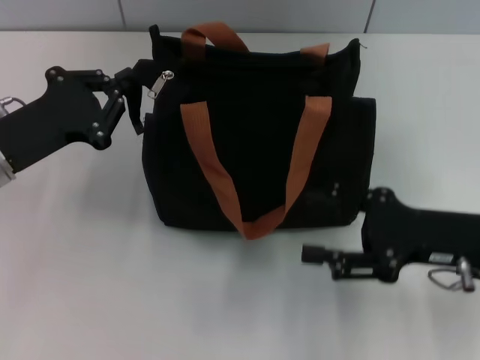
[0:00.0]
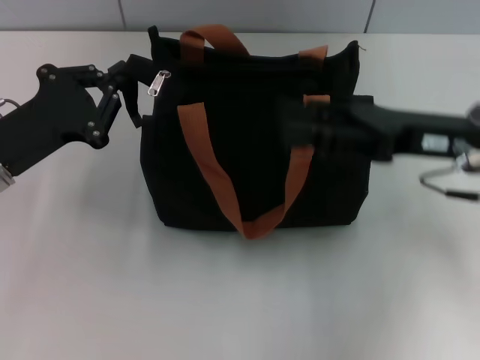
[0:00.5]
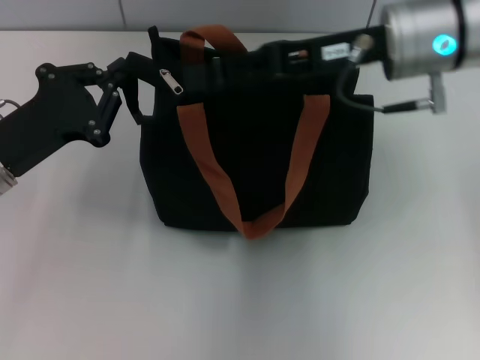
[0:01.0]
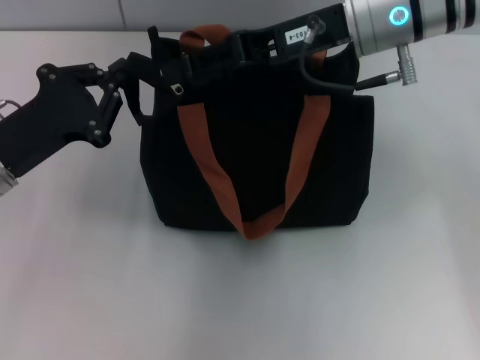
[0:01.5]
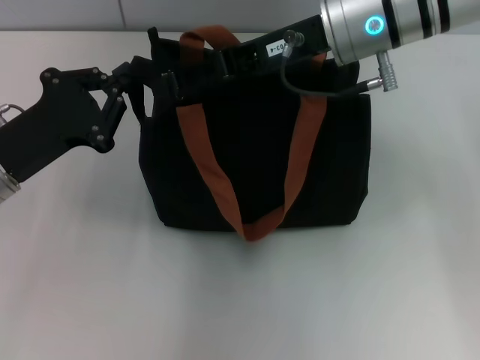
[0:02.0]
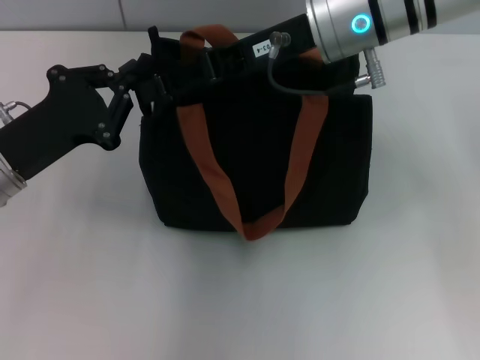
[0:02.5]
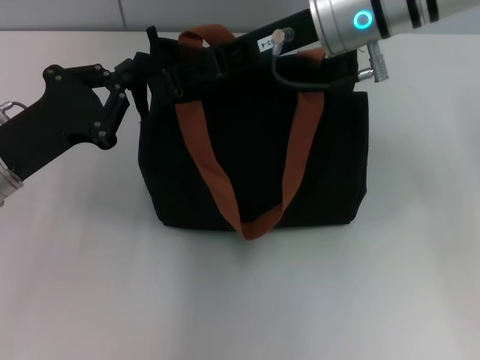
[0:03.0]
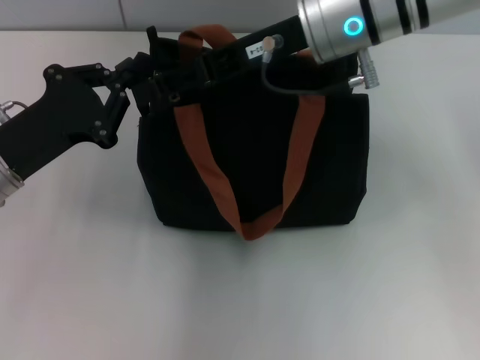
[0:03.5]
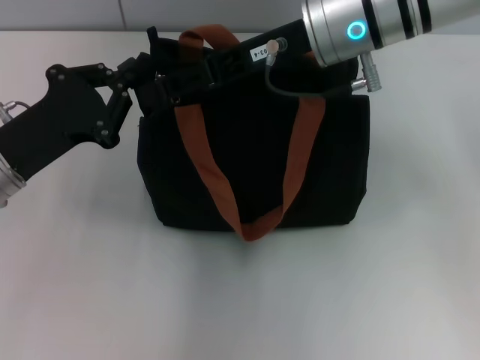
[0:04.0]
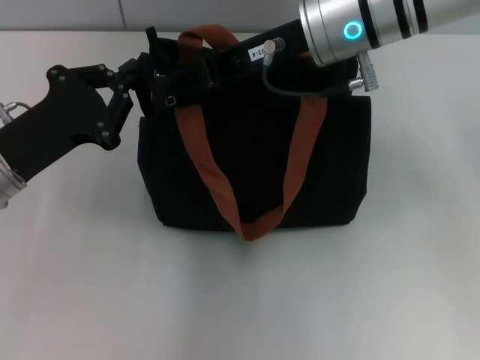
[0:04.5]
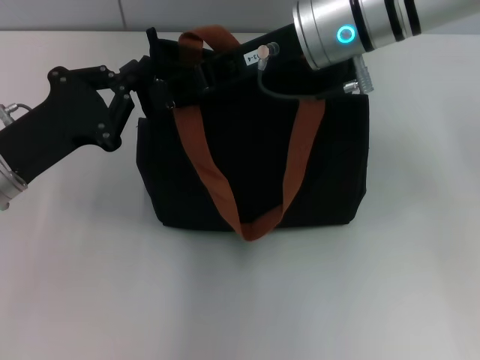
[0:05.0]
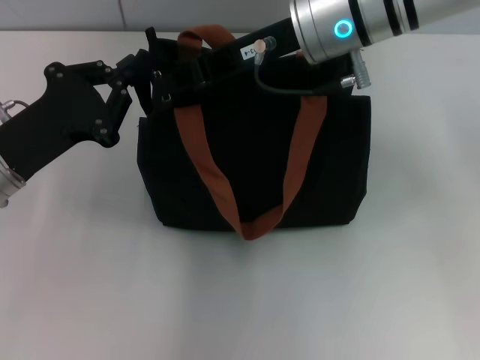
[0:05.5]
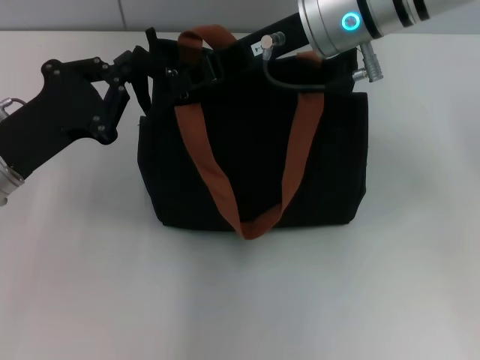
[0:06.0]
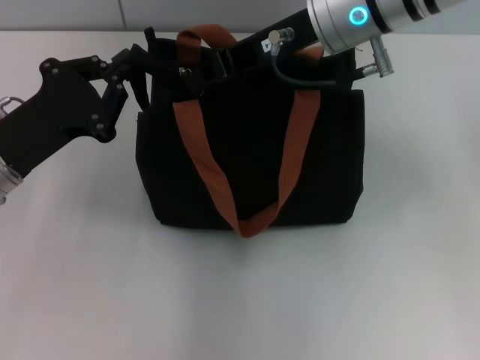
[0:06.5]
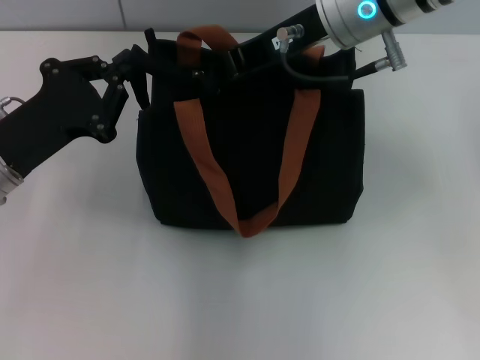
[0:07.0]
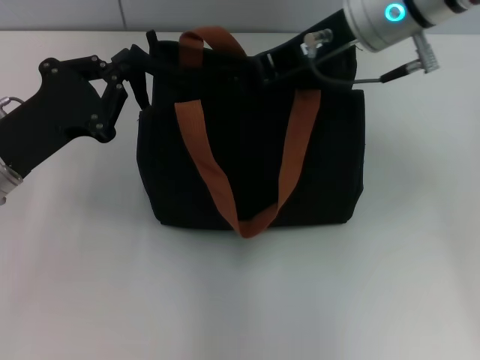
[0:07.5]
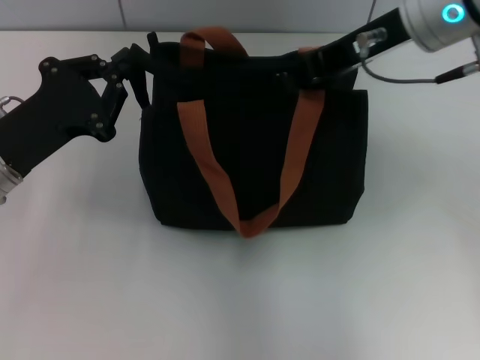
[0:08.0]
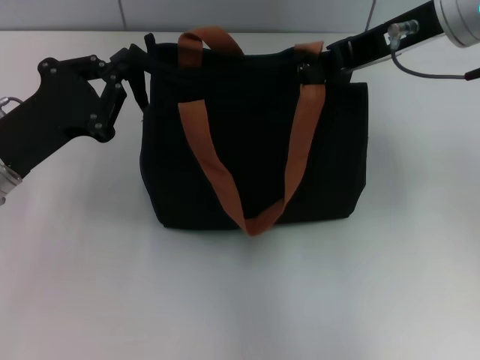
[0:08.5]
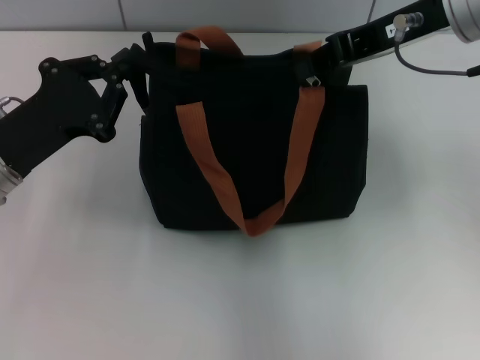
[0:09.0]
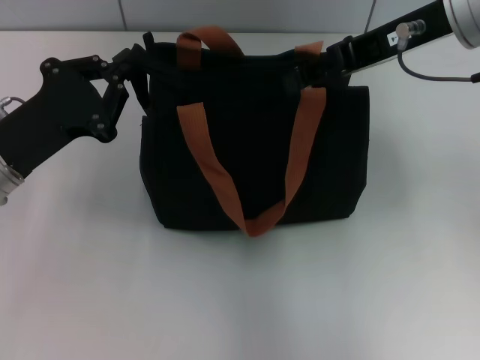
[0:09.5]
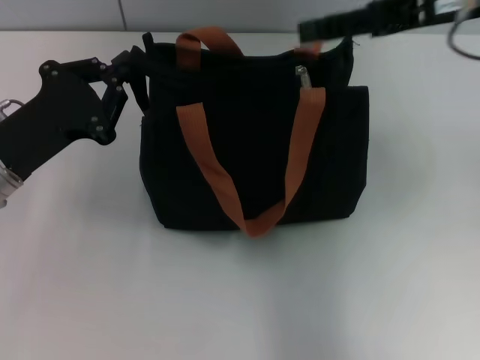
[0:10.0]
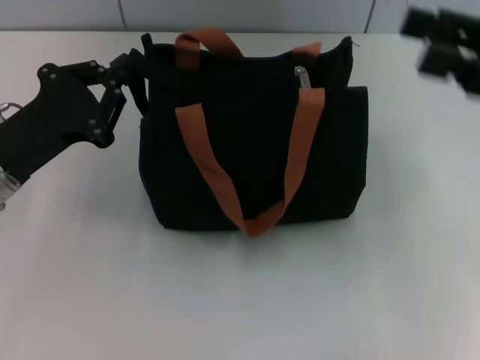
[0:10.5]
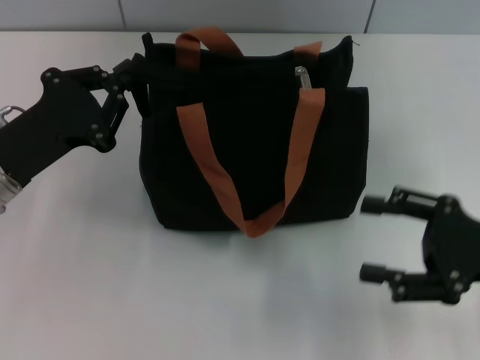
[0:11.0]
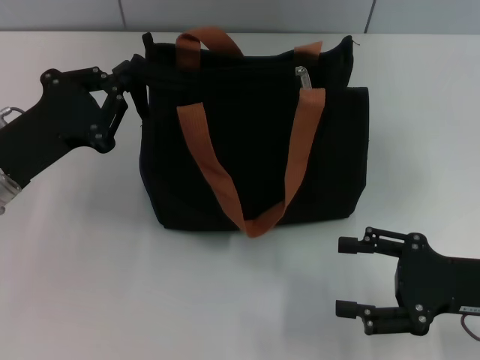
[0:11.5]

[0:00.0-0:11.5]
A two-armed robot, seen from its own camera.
Step, 0:00.0 to 0:10.0: Pull up the zipper with your right hand.
0:00.0 to 0:02.0: The right gripper goes approximately 25 cm to the left, forward and upward.
0:02.0 to 0:04.0: The grippers move only a little.
0:04.0 to 0:06.0: The right gripper closes.
0:06.0 to 0:07.5: The grippers stay close to where they were, moving slightly.
0:07.5 to 0:09.5: The right gripper goes some 5 cm to the right, and opens.
0:09.5 to 0:11.5: The right gripper shifts some 25 cm downward, backward and to the right, and opens up.

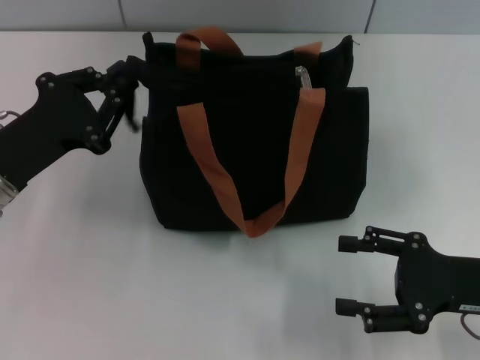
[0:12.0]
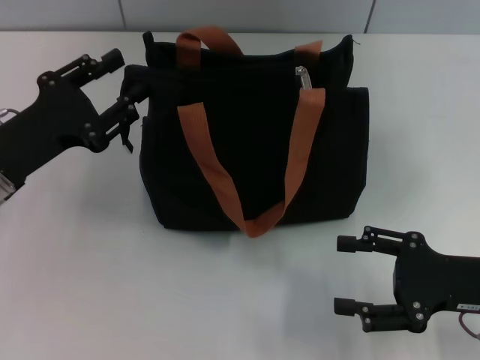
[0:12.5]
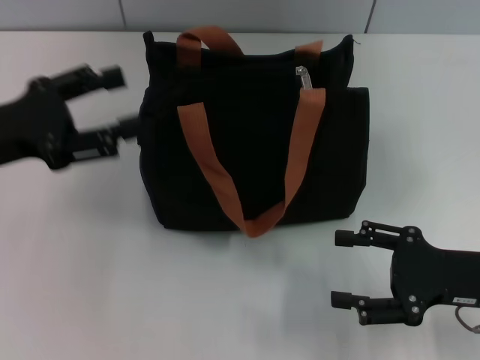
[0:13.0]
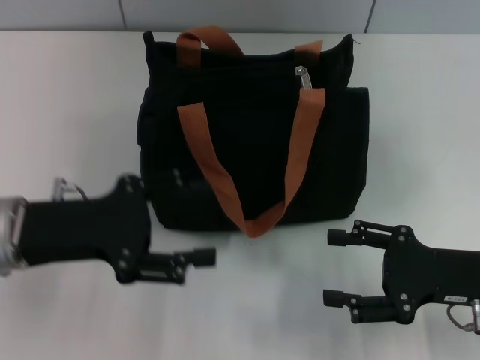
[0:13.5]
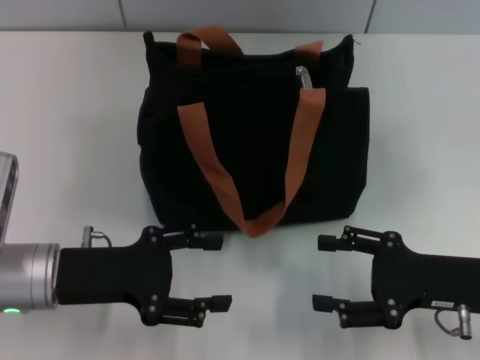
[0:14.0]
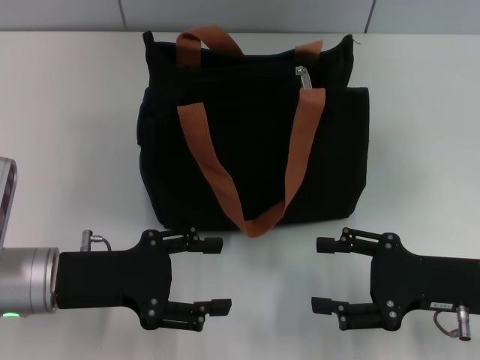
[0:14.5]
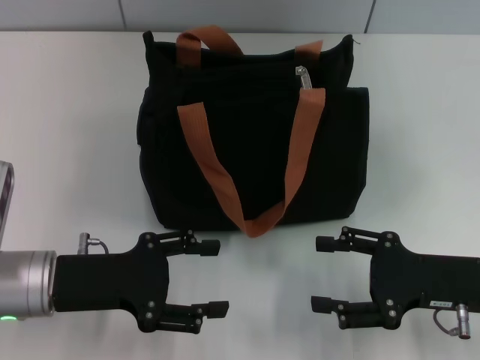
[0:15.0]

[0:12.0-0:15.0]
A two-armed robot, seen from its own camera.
0:12.0 to 0:13.5: The left gripper opens its fingers.
0:13.5 to 0:15.0: The left gripper heads downward, covering roughly 5 cm.

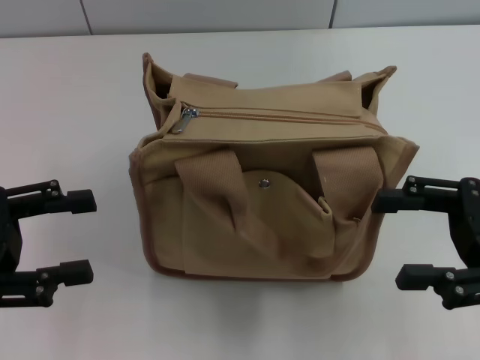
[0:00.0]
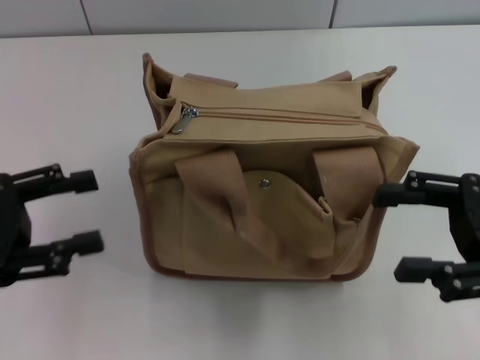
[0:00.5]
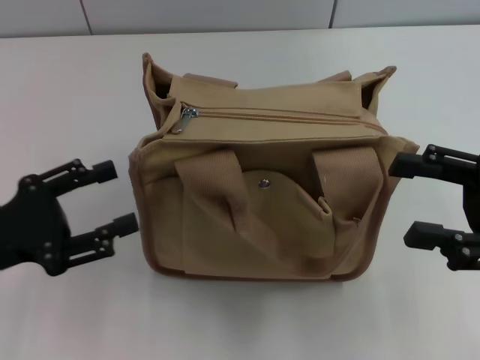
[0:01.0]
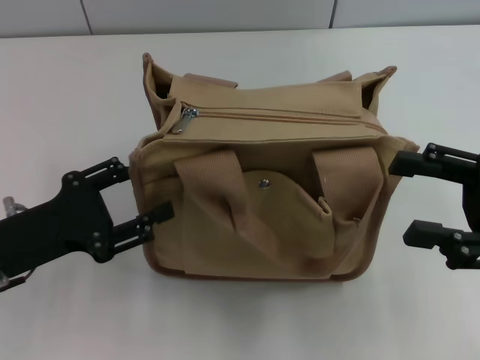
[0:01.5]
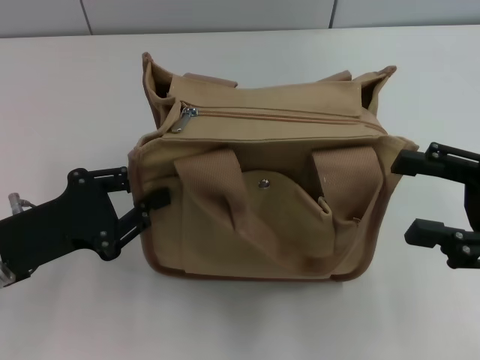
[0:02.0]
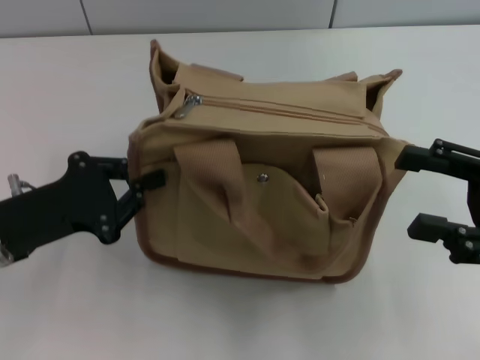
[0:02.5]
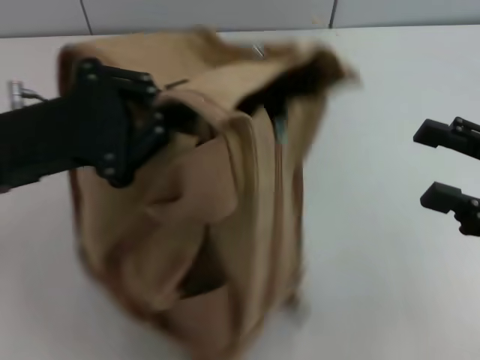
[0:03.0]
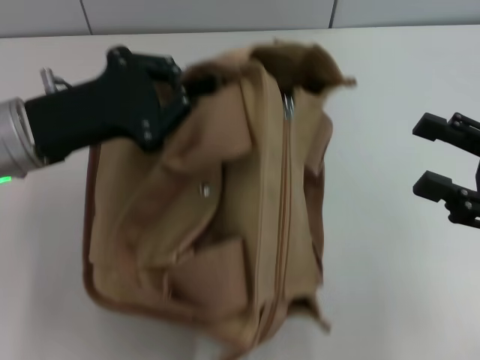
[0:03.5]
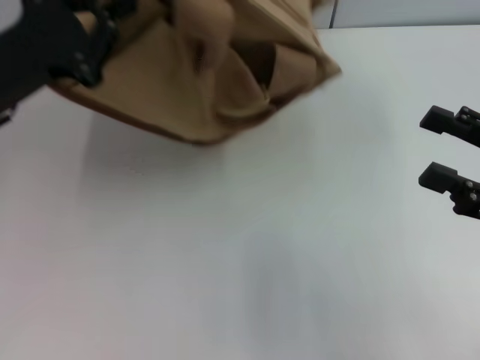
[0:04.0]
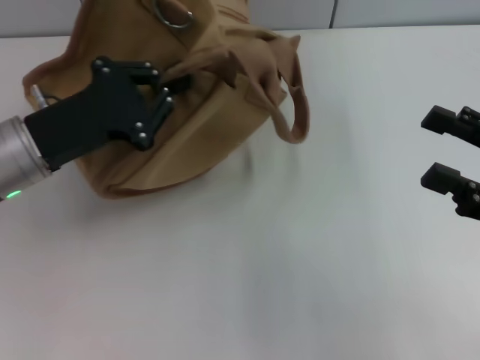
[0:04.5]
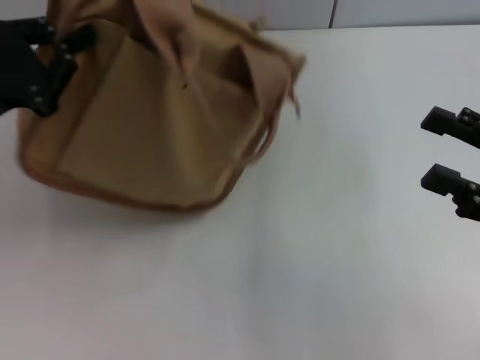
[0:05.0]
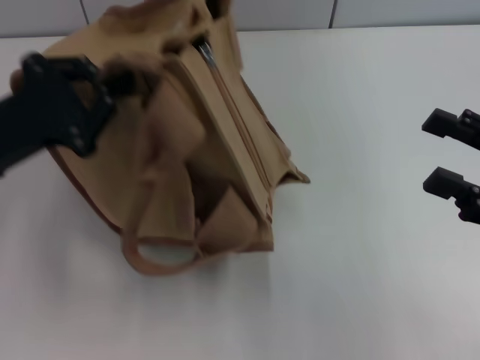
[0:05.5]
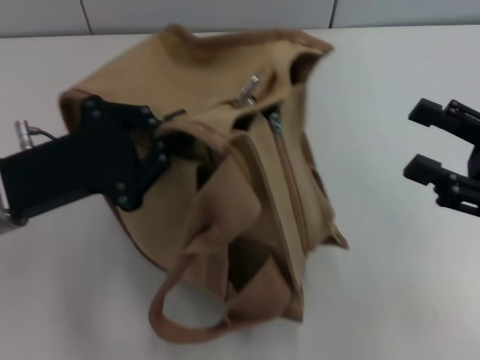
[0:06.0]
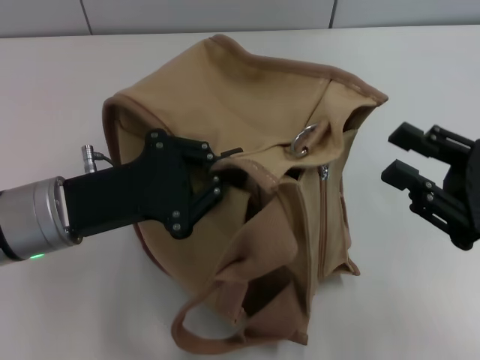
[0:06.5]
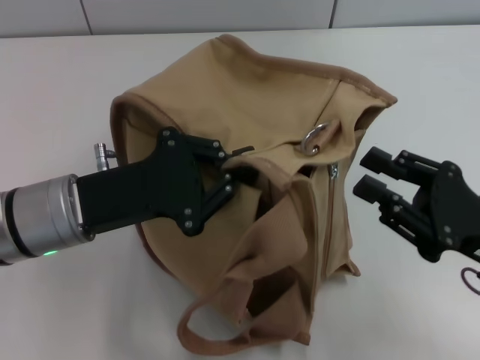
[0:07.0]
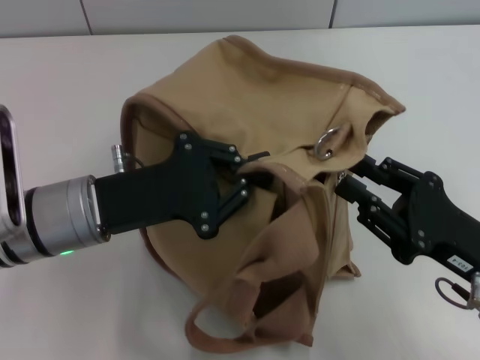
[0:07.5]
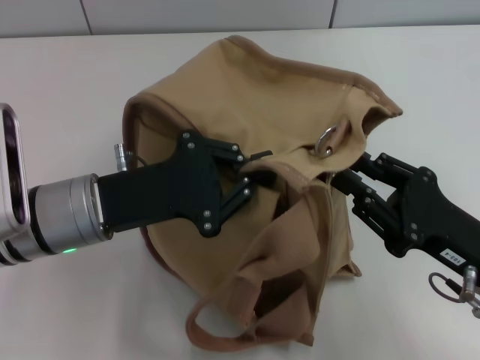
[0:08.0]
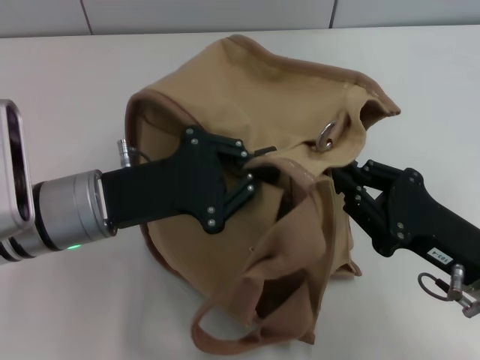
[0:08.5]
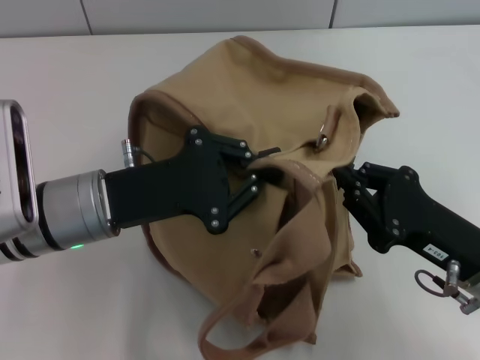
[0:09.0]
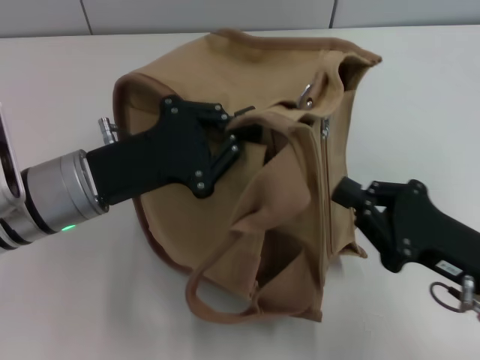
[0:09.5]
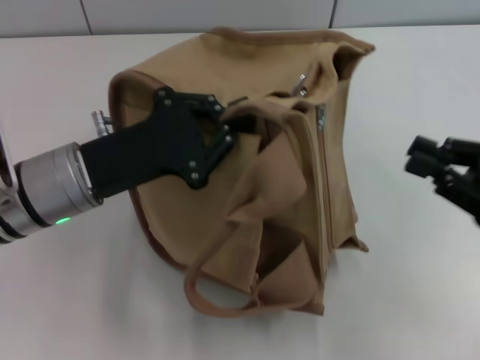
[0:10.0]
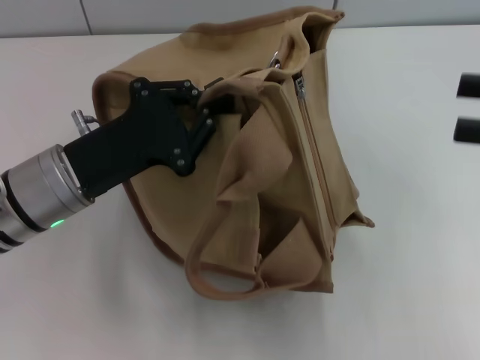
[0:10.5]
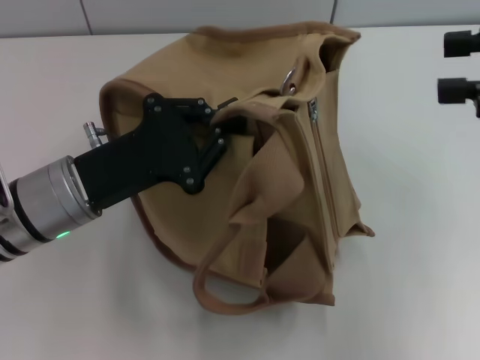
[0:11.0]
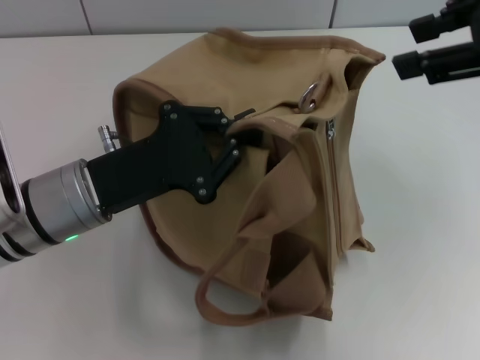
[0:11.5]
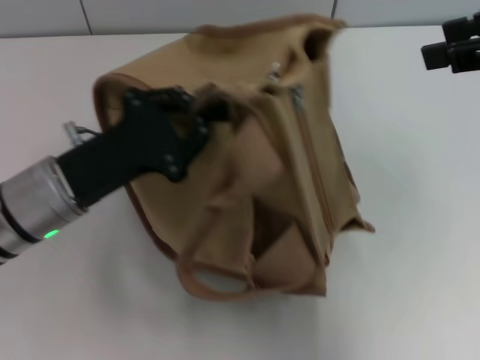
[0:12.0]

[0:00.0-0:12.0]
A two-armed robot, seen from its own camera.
0:00.0 to 0:02.0: The left gripper heads downward and to the right, covering roughly 10 cm, and closes its fingers.
0:02.0 to 0:04.0: The left gripper moves upward and forward, approximately 10 cm, and closes its fingers.
0:04.0 to 0:06.0: The left gripper shifts by roughly 5 cm.
0:06.0 to 0:08.0: The left gripper is displaced to the right by some 5 cm; the right gripper moves to the left and downward, some 10 cm, and closes.
0:08.0 to 0:10.0: The right gripper is displaced to the right and upward by about 10 cm, and closes.
0:10.0 to 0:12.0: The right gripper goes roughly 20 cm upward, and opens.
